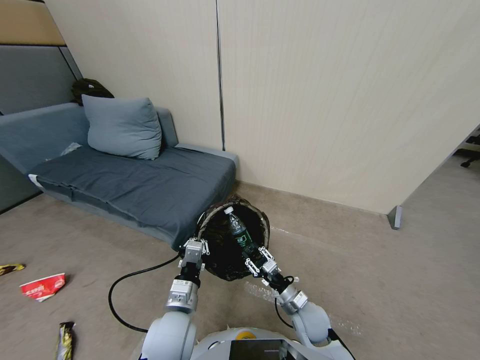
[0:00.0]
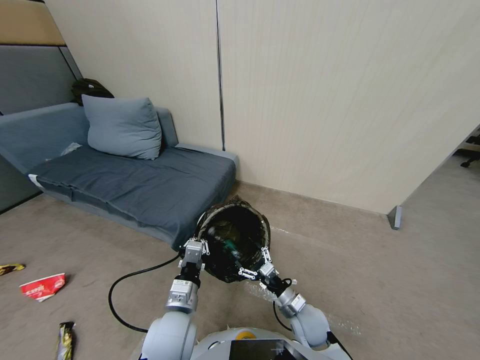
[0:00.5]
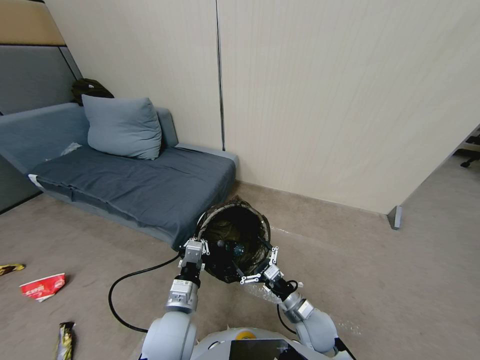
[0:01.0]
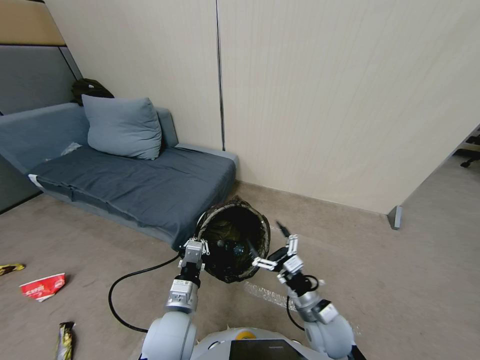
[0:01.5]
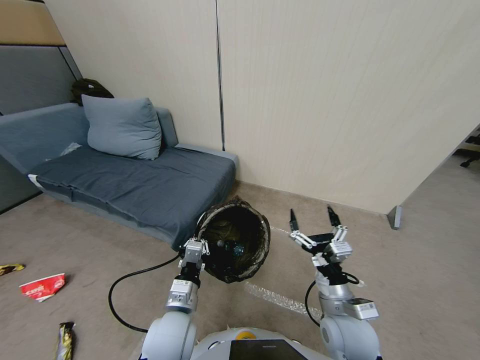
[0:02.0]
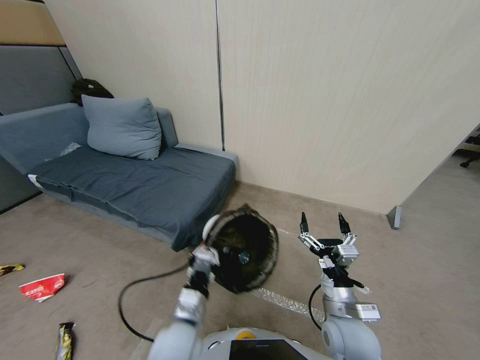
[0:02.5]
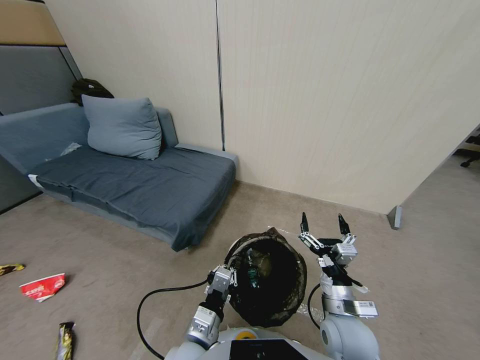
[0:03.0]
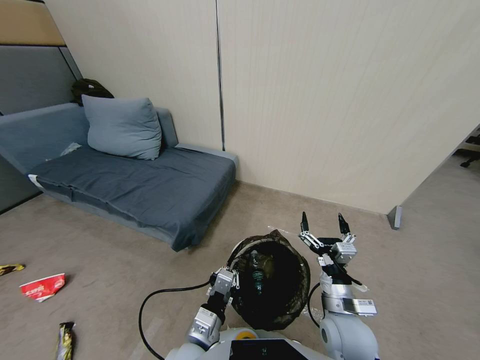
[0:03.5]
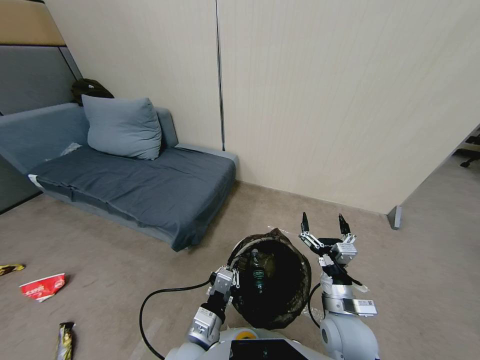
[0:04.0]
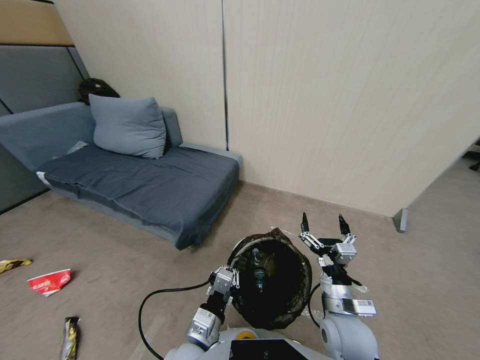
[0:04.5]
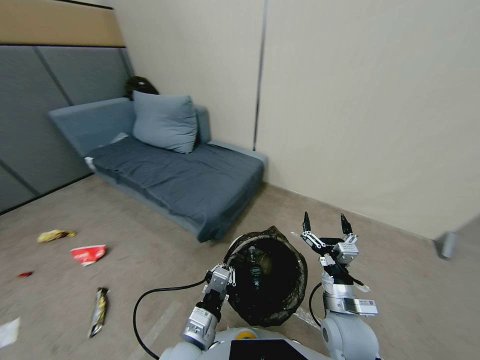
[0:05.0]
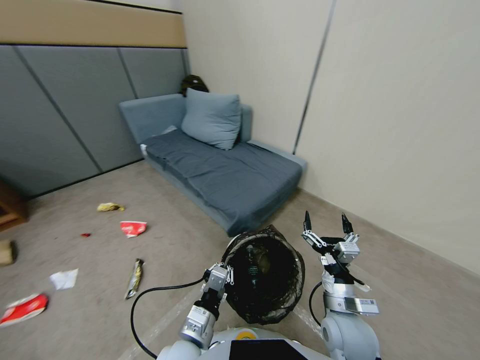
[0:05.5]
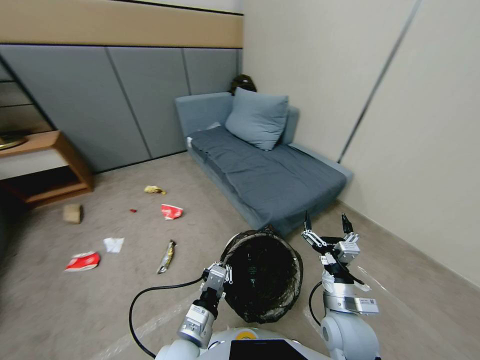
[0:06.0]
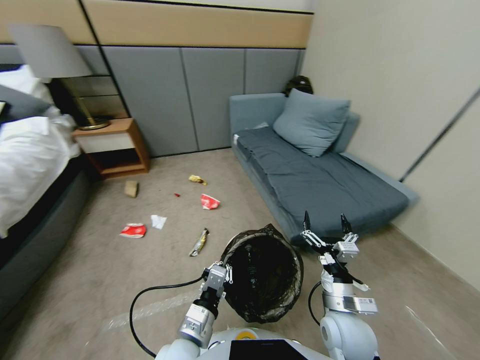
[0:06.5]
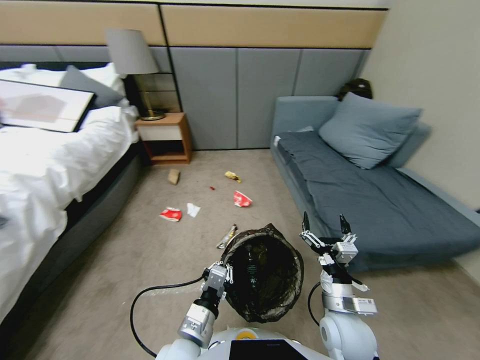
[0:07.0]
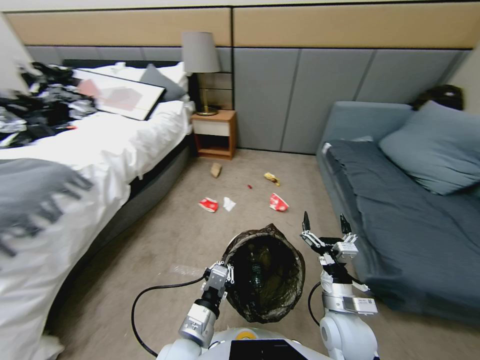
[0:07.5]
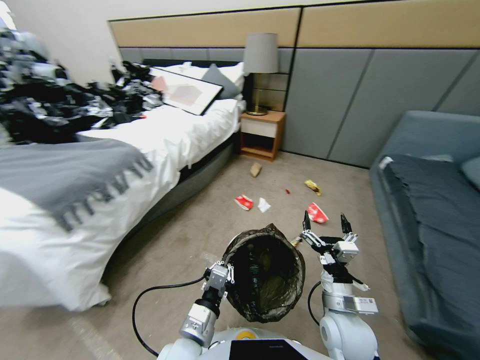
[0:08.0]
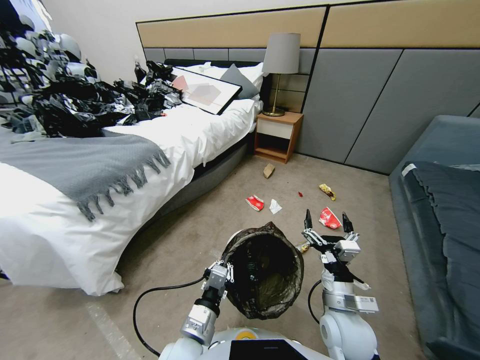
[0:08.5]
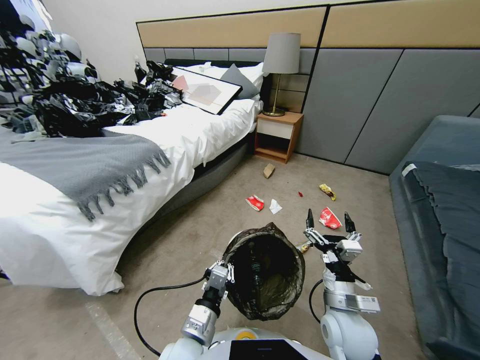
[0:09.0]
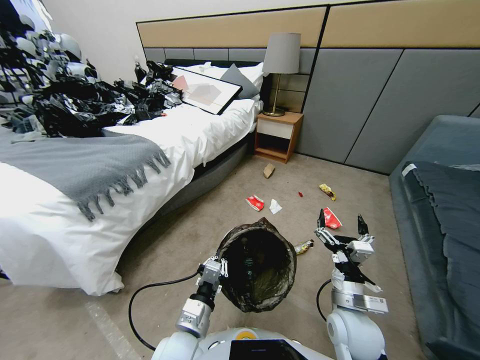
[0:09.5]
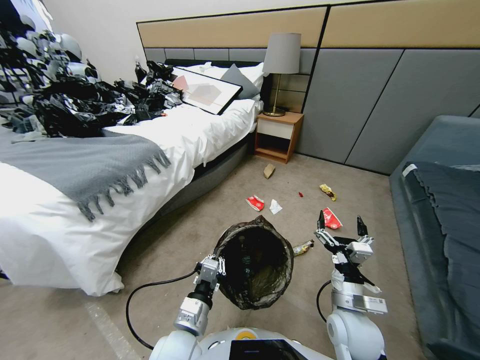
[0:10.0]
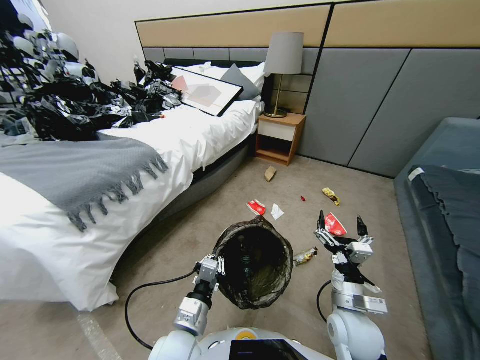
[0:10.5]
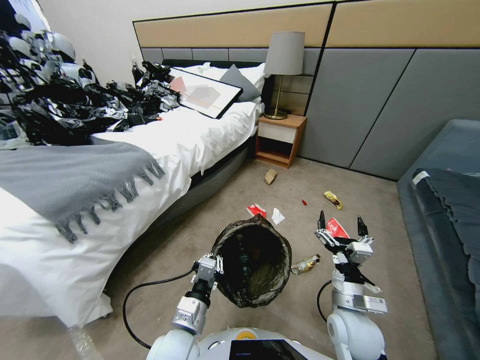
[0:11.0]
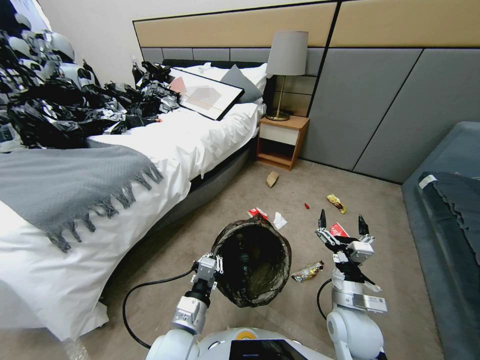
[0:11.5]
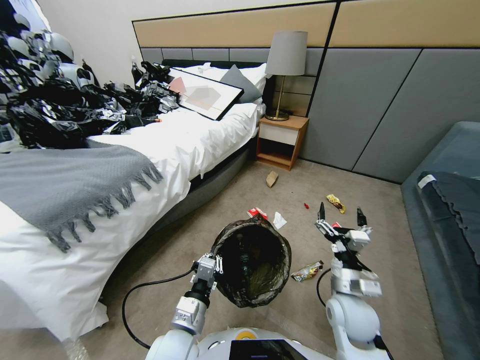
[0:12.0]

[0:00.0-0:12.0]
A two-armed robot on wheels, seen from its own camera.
Task of the whole recording: Pick up the trash bin, then pick up the garbage from the floor and place it into the trash bin.
0:00.0 to 0:02.0: The right gripper goes roughly 15 cm upward, and opens its fingers.
0:02.0 to 0:04.0: The left gripper heads backward, covering roughly 5 cm.

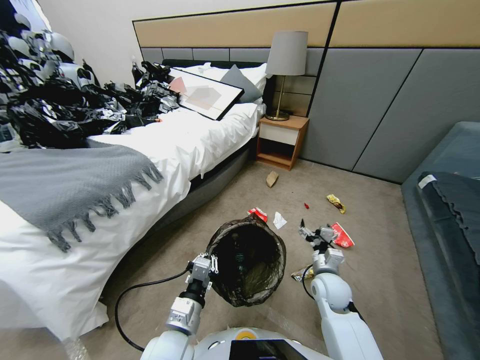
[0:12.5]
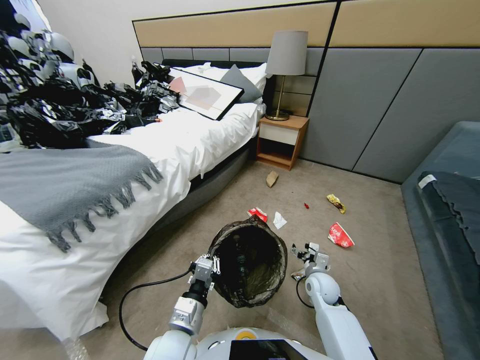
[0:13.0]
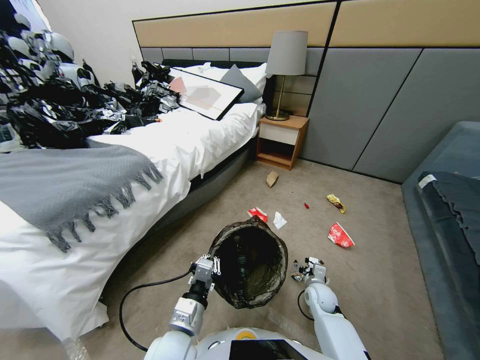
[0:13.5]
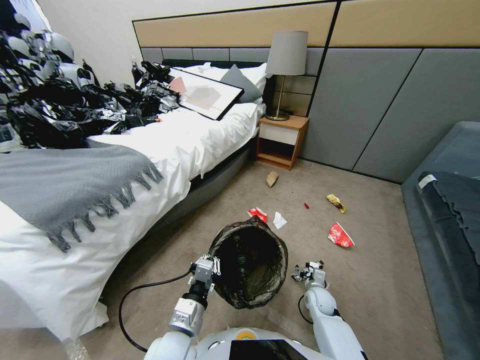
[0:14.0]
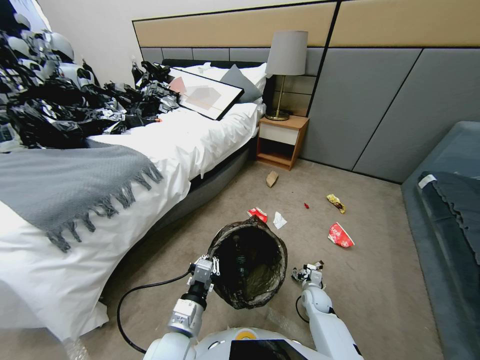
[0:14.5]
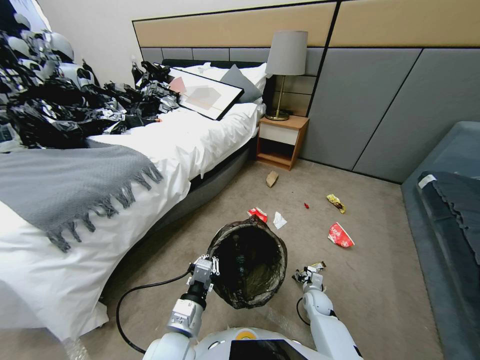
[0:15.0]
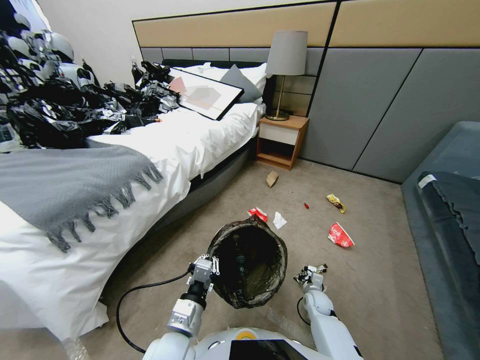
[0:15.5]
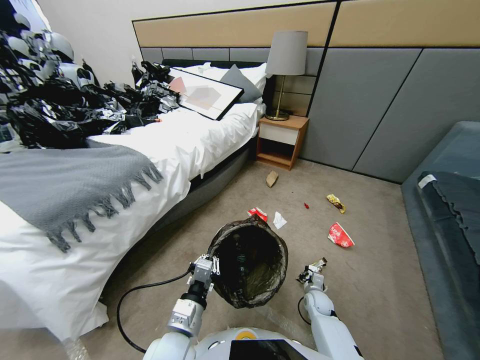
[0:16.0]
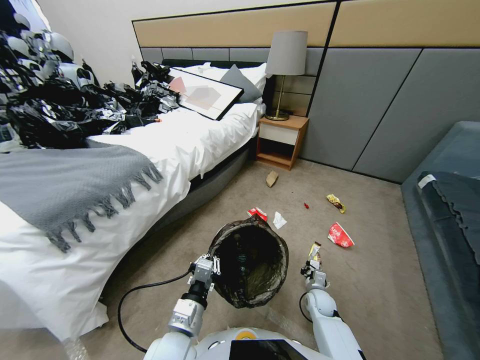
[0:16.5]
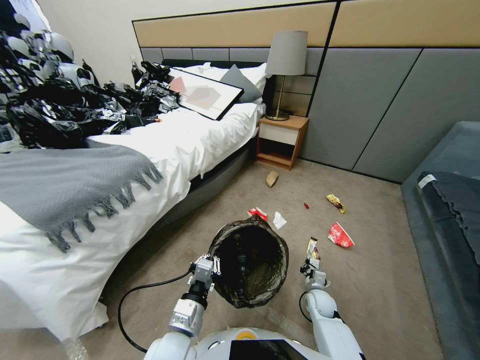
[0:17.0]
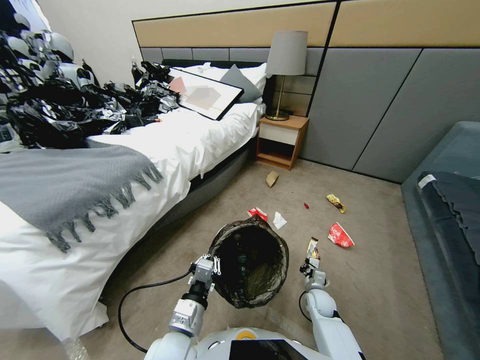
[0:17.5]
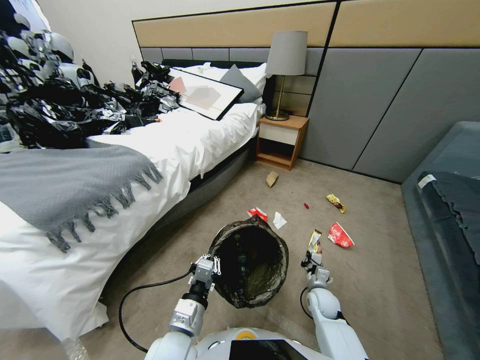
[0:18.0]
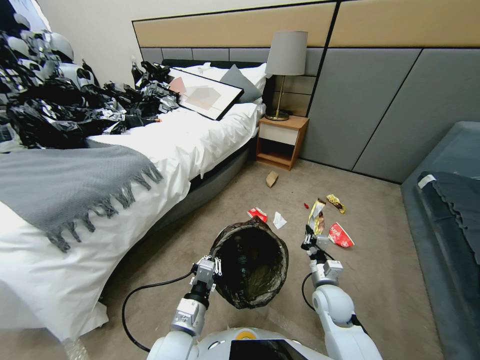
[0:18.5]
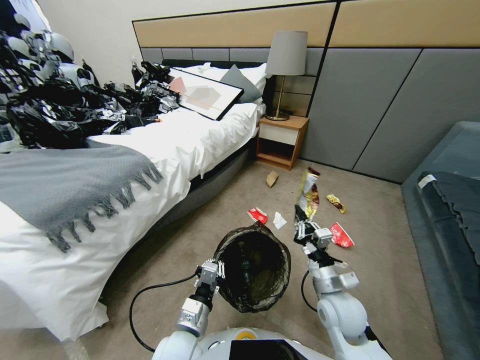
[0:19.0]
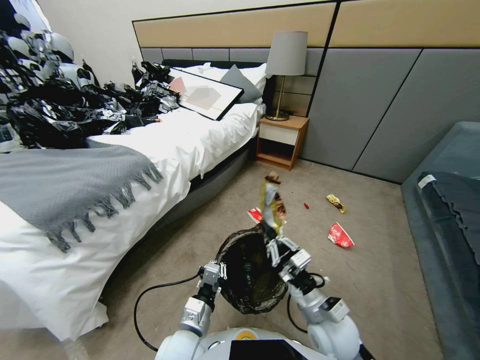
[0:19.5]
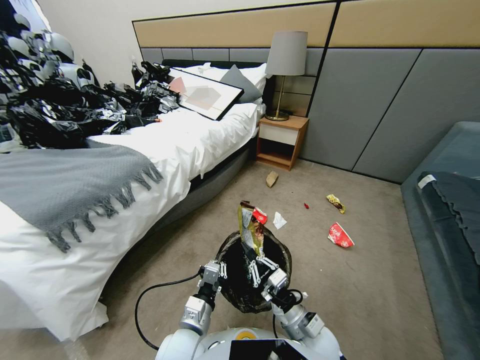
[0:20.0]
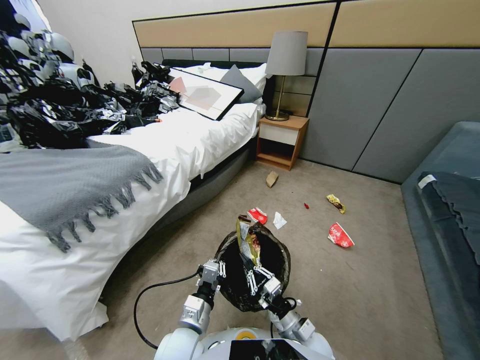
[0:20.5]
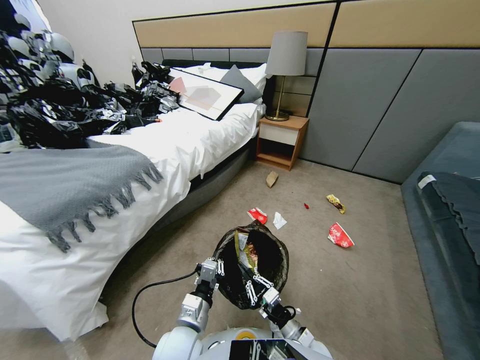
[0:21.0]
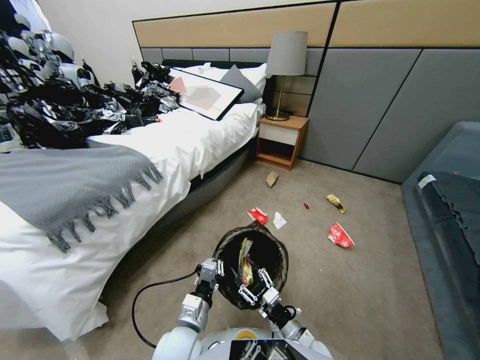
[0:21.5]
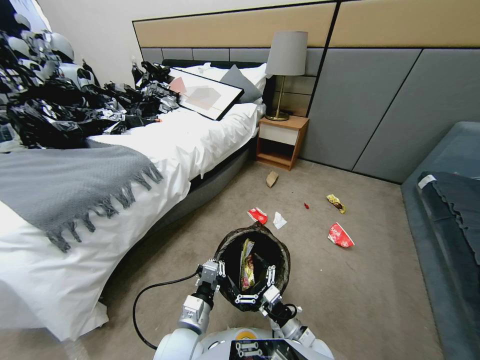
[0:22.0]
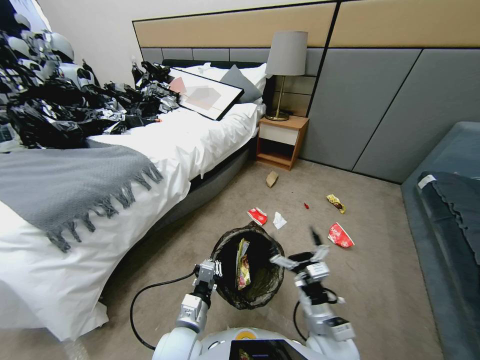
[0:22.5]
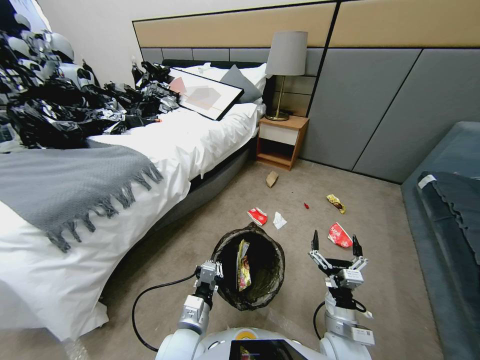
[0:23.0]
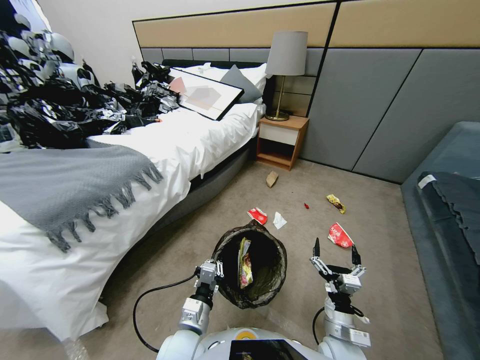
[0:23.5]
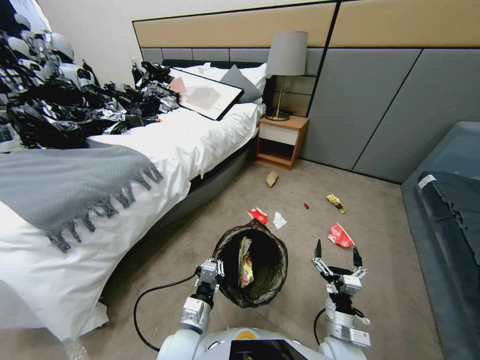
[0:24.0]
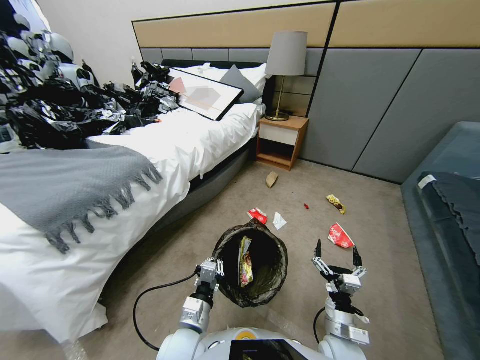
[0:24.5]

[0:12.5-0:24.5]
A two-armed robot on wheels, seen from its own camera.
Task of the whole recording: Pick up the trash bin, then pick up the garbage from the floor and place it into the trash bin.
0:12.5 to 0:14.5: The right gripper is displaced downward by approximately 15 cm.
0:14.5 to 0:16.5: The right gripper closes up.
0:16.5 to 0:18.5: The right gripper is displaced upward by about 15 cm.
0:18.5 to 0:20.5: The right gripper moves backward, to the left and downward, some 15 cm.
0:20.5 to 0:22.5: The right gripper shifts roughly 10 cm upward, and opens its fingers.
0:22.5 to 0:24.5: The right gripper goes some 5 cm downward.

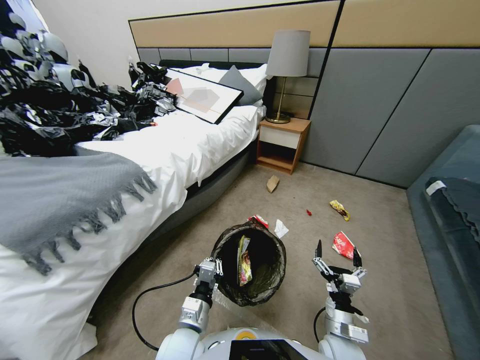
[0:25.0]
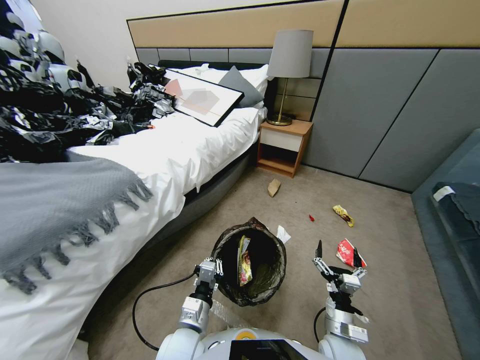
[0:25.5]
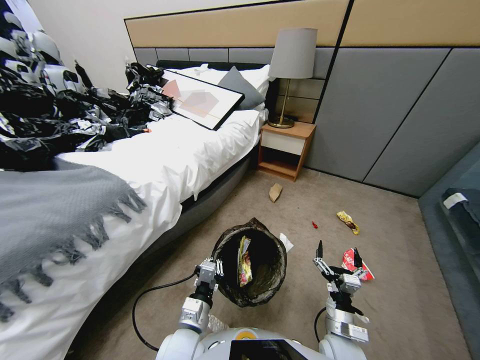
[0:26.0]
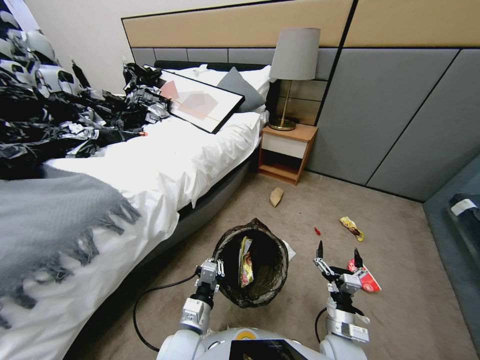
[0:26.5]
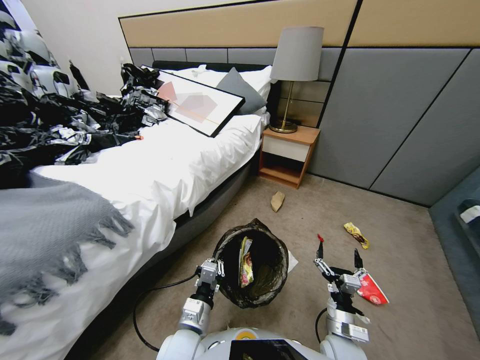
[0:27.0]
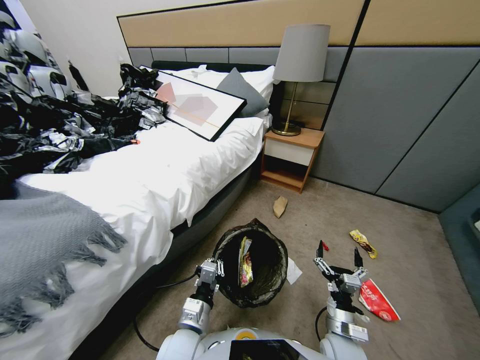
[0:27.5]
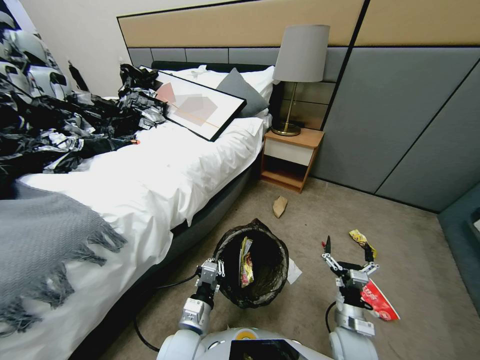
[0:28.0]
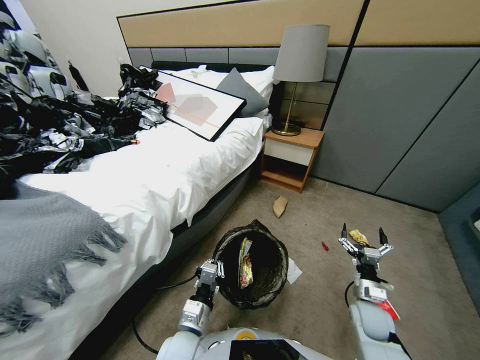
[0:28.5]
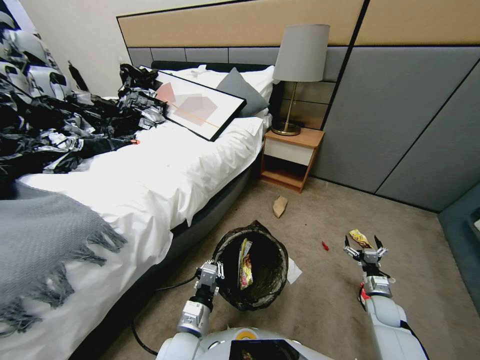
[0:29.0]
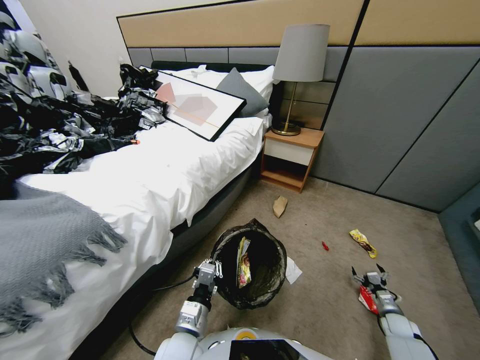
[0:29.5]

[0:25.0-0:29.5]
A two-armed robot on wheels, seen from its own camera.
Task of the whole recording: Pick up the trash bin, then pick up the garbage from the floor and place it into the trash bin.
0:27.0 to 0:29.5: The right gripper moves to the right and downward, approximately 35 cm.
